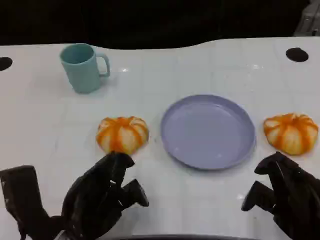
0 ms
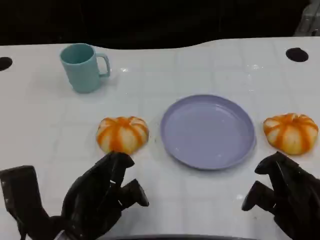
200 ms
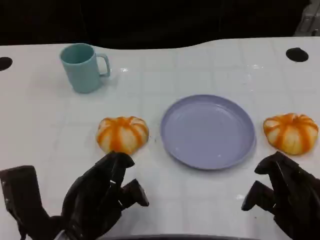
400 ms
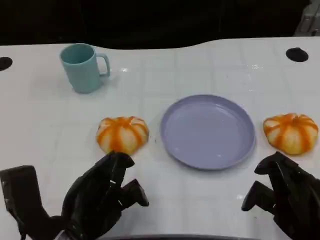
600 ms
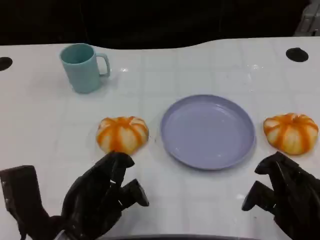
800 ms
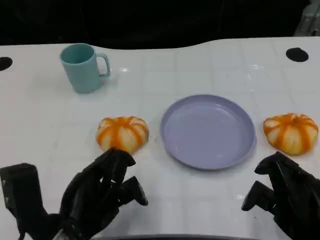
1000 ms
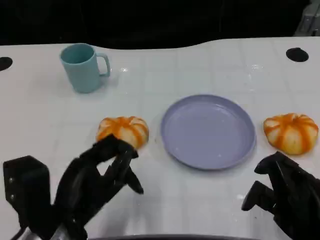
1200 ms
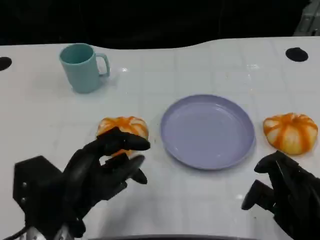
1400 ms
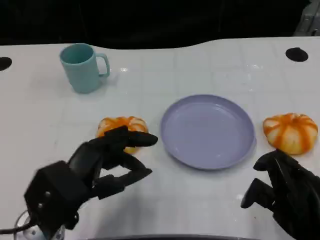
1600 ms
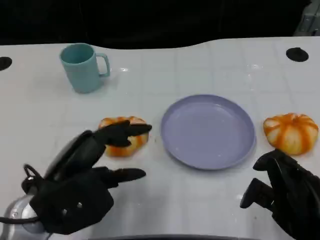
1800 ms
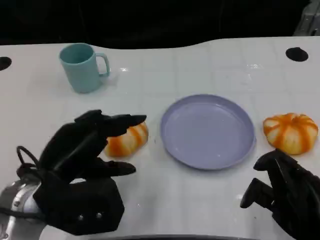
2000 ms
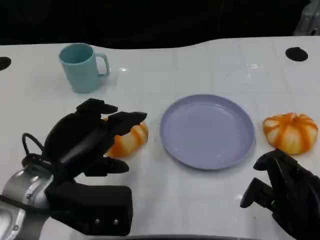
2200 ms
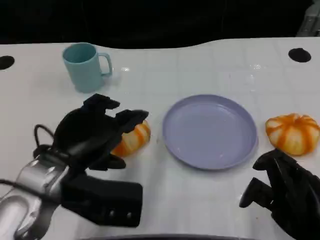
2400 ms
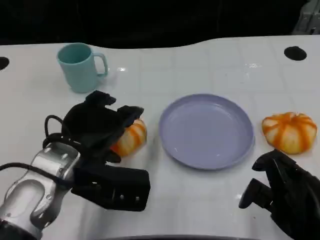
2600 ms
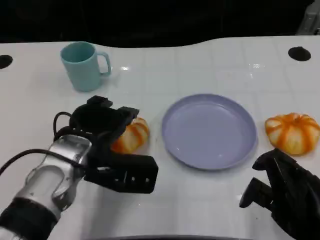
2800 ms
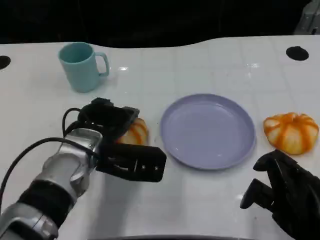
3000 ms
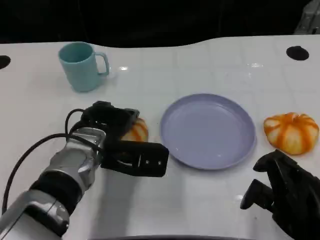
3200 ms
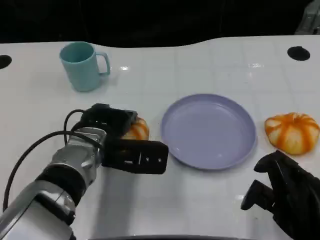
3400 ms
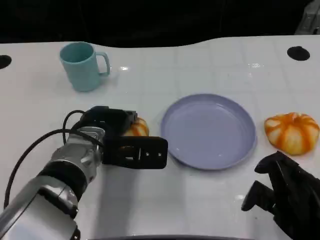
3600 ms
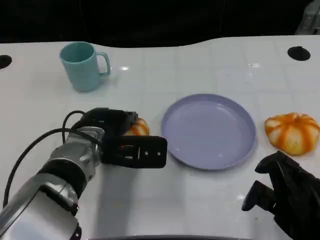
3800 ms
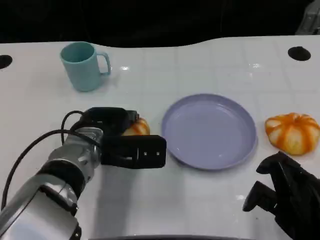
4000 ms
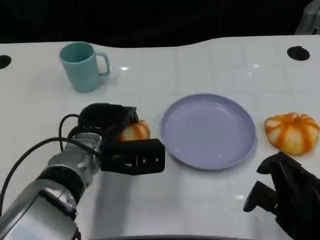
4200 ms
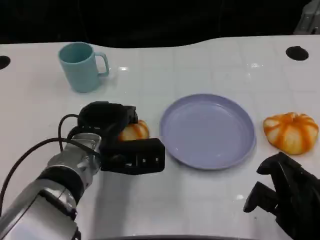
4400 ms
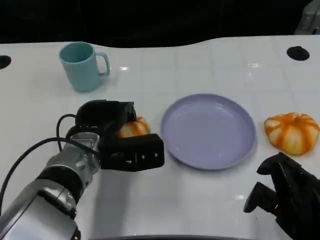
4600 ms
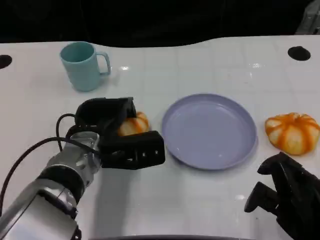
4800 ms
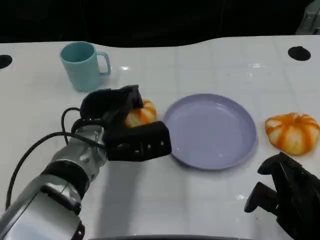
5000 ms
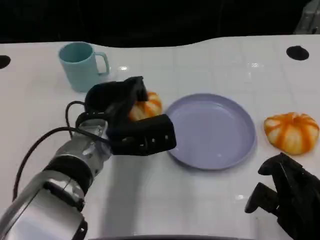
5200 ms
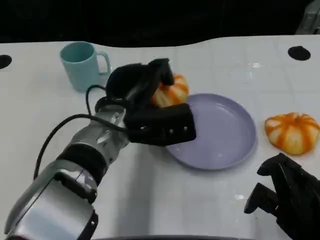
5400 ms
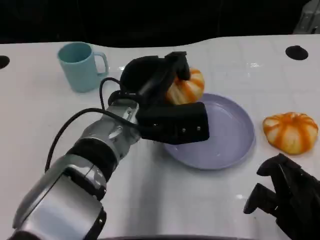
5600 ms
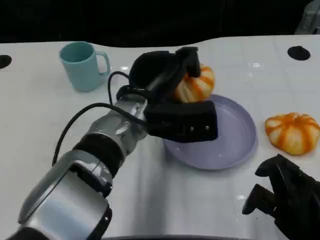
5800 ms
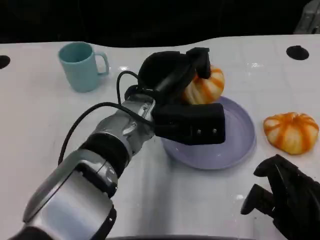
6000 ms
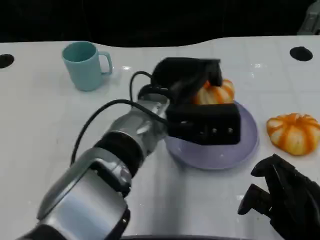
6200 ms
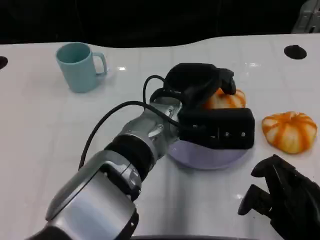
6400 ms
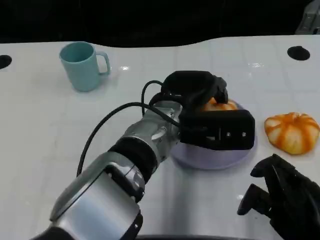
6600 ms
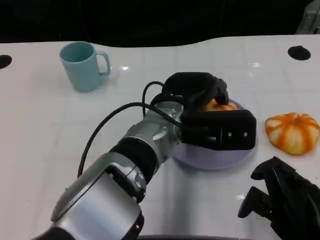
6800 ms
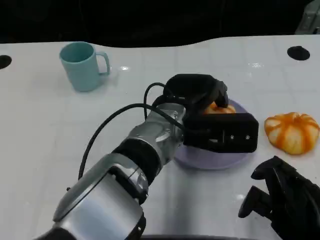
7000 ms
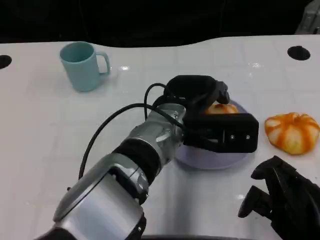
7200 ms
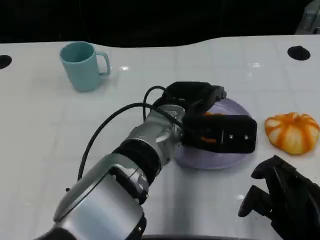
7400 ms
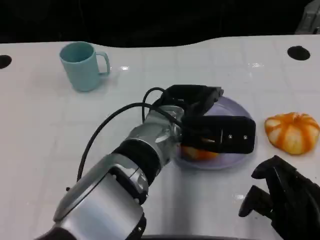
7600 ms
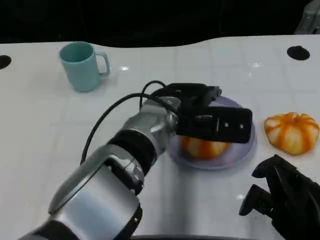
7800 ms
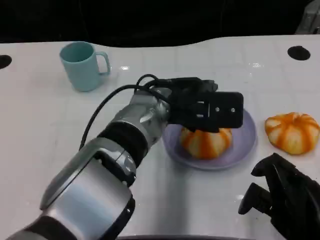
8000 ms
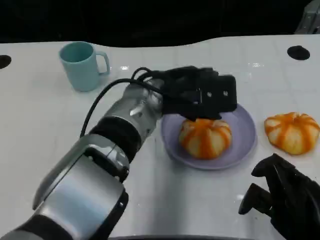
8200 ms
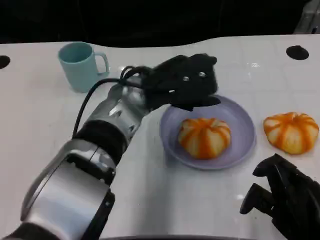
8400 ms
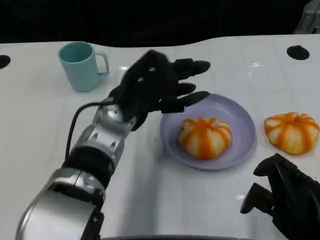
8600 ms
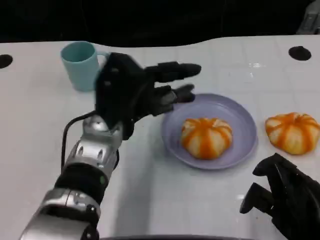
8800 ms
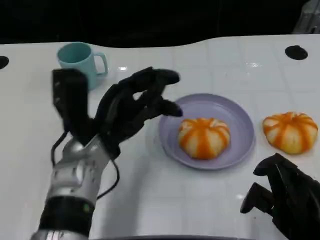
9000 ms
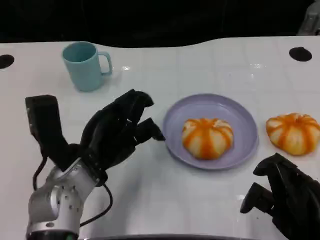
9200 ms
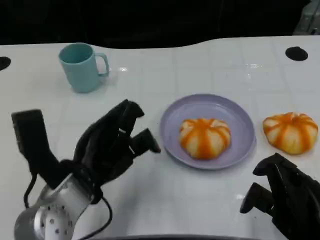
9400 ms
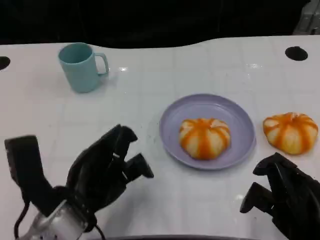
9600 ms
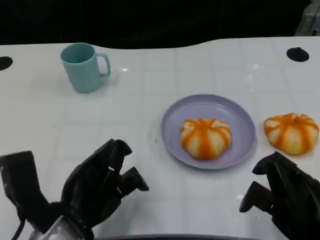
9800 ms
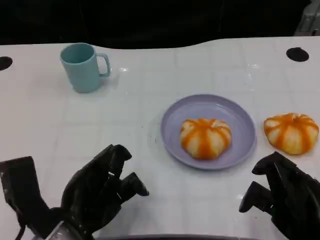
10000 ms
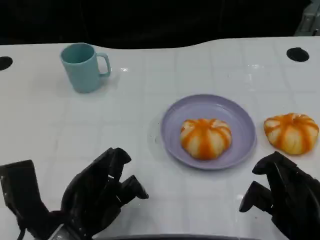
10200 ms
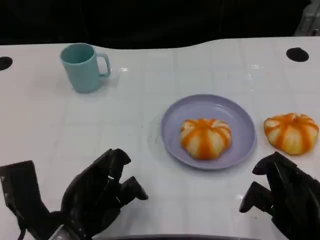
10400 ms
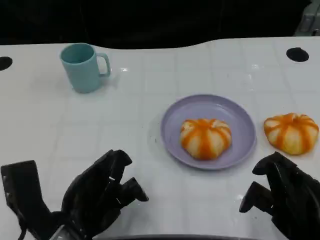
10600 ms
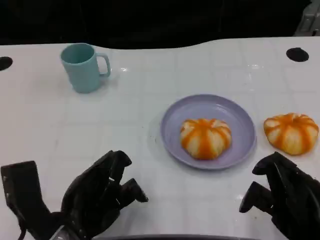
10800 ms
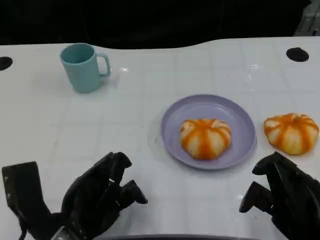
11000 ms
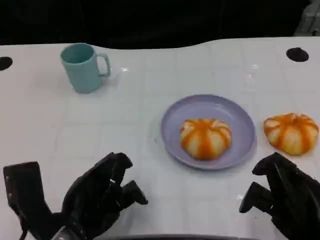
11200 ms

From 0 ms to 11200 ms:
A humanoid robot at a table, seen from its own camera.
Task of the whole recording: Grasp the bread from the table and place it into the plate.
From 1600 ms to 3200 ms: The left hand moves forward and to the right, approximately 15 cm.
From 4800 ms to 6400 ms: The left hand heads to the right and upward, covering some 15 cm.
From 8000 ms to 9600 ms: The left hand heads to the left, backward and downward, covering about 20 cm.
From 9600 ms to 11200 ms: The hands make only small movements.

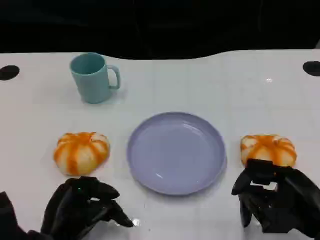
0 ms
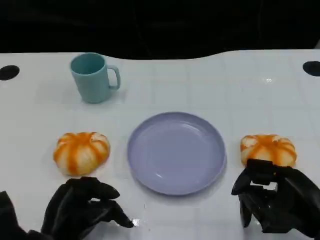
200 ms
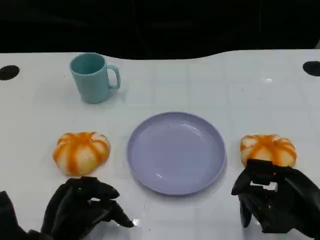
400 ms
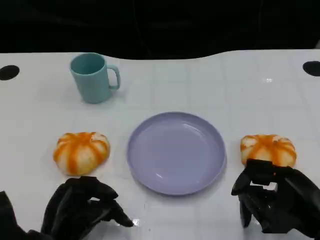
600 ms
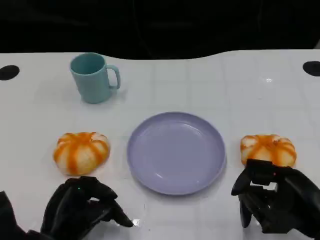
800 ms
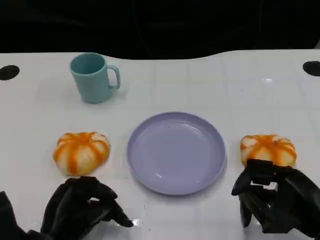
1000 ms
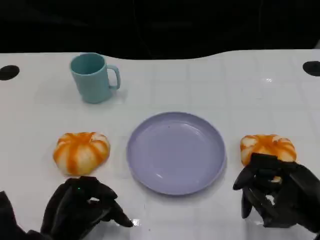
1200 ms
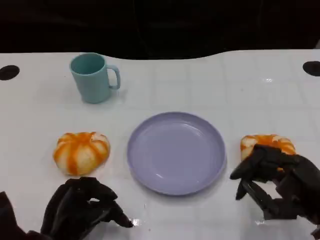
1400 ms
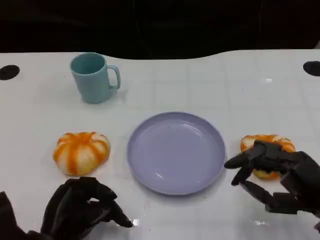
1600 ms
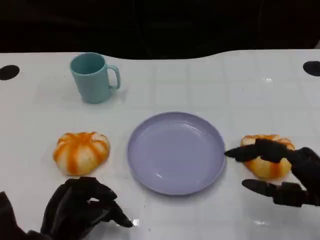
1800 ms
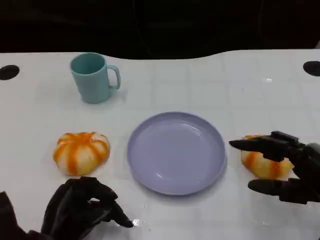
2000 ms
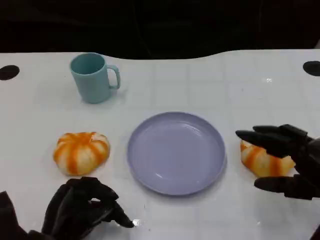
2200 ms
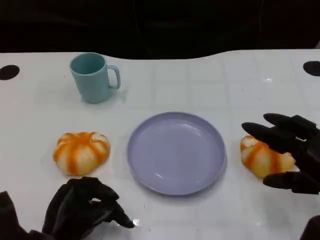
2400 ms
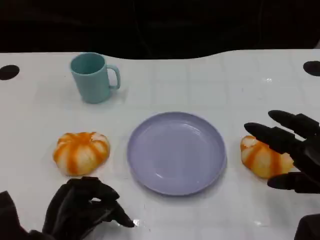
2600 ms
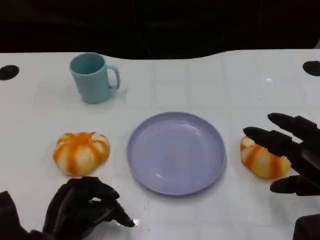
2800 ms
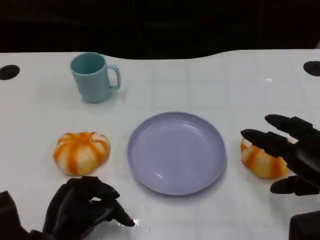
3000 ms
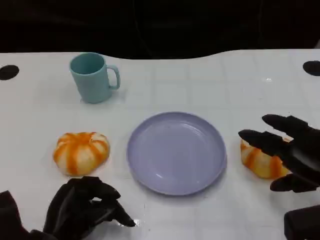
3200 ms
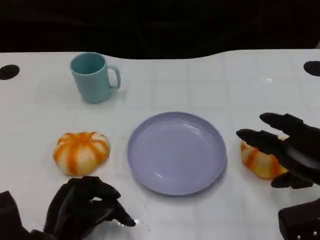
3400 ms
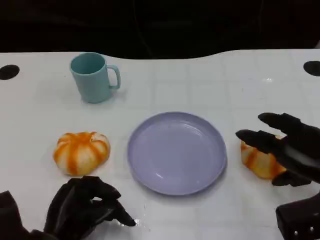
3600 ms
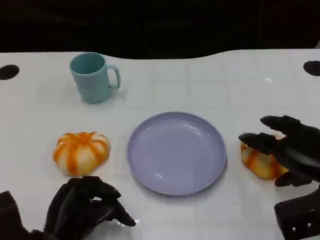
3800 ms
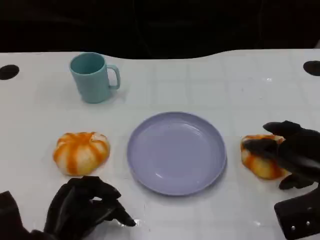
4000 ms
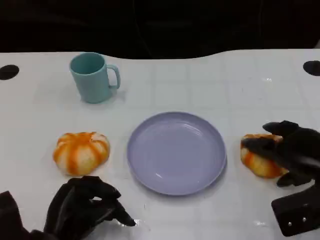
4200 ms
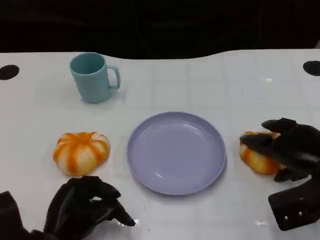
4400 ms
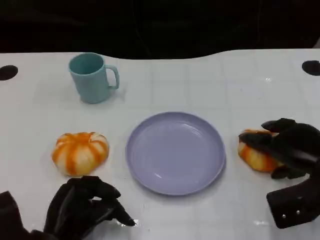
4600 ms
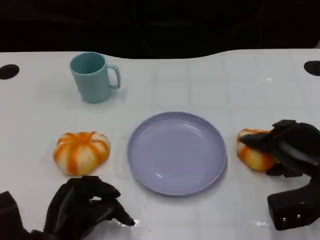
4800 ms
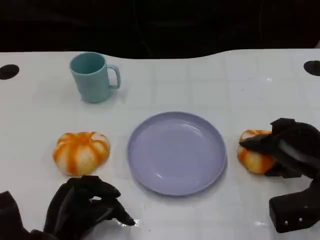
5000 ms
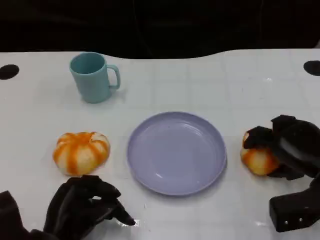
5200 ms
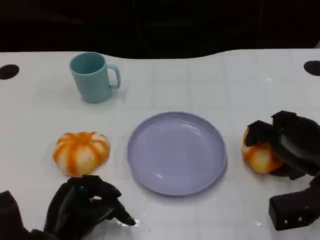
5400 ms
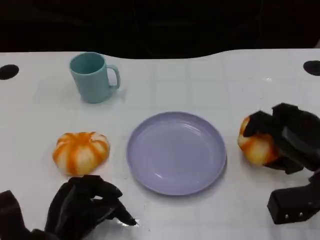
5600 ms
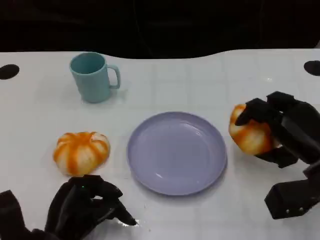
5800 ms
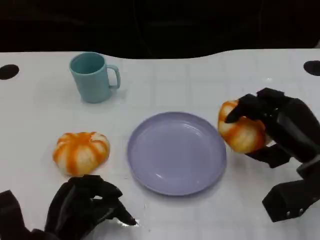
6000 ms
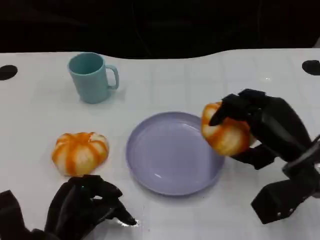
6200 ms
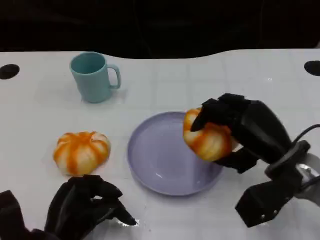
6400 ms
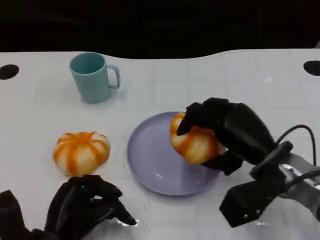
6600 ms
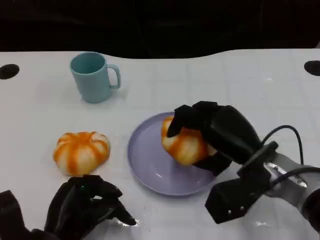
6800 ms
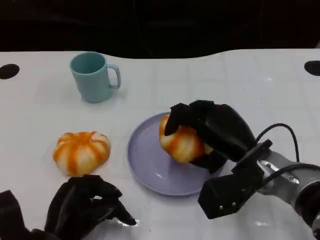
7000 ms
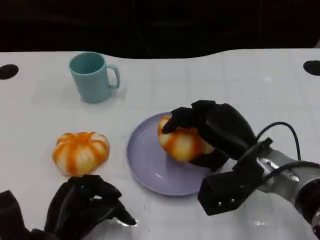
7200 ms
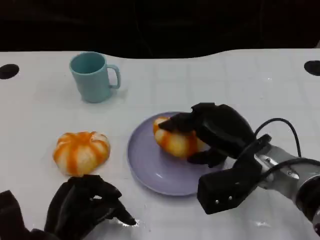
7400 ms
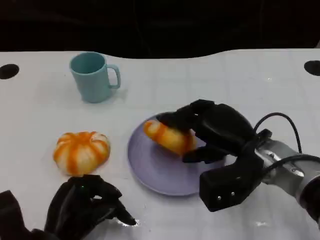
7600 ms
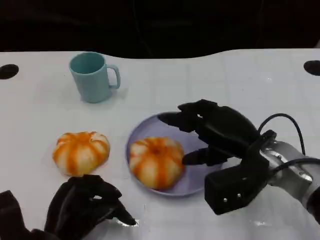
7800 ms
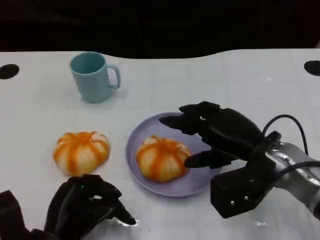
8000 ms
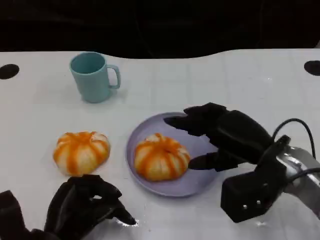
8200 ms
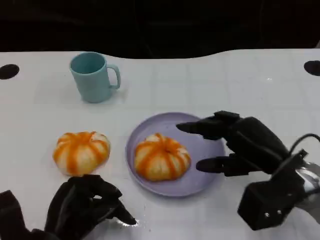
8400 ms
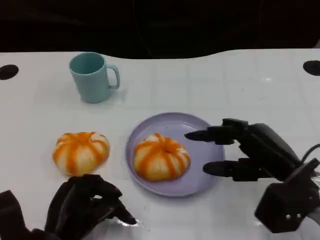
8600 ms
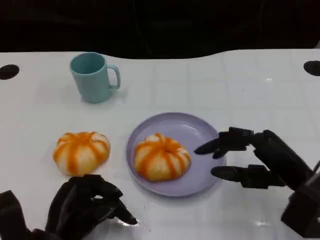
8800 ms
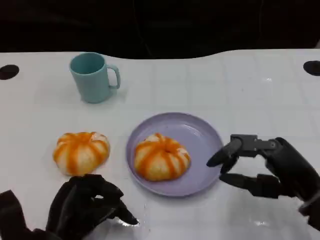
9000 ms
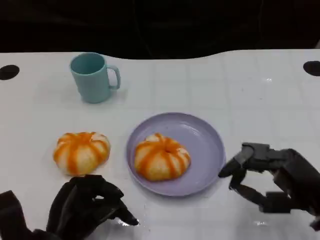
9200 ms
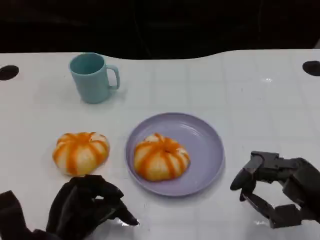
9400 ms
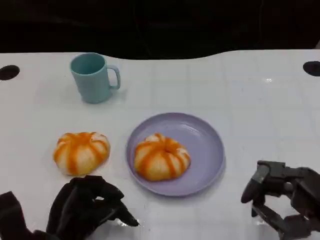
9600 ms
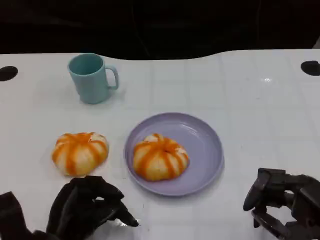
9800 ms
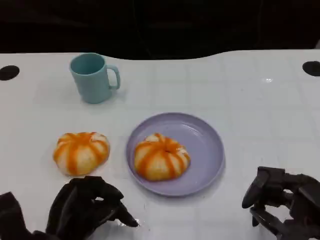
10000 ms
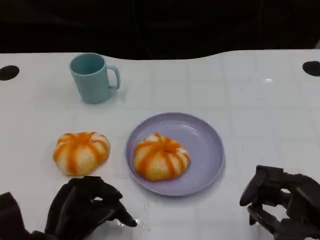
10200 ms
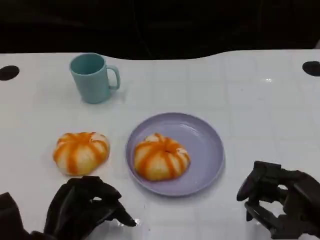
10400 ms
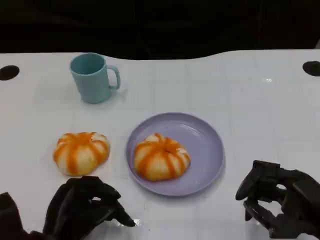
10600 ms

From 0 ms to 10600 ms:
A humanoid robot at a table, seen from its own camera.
Task of the whole recording: Grasp the bread from the table and place it into the plate.
From 3000 ms to 4600 ms: The right hand heads forward, covering roughly 5 cm.
From 6000 ms to 7600 ms: The right hand shifts about 10 cm to the left.
From 7600 ms to 9000 ms: The right hand heads to the right and backward, covering about 10 cm.
From 9000 ms to 10600 ms: The right hand changes place by approximately 5 cm.

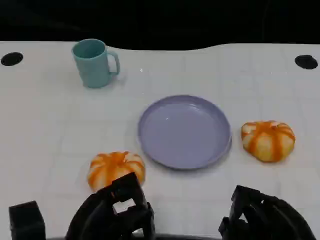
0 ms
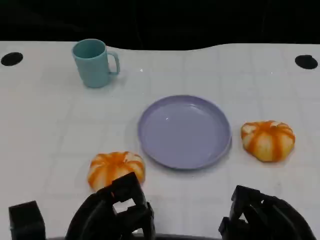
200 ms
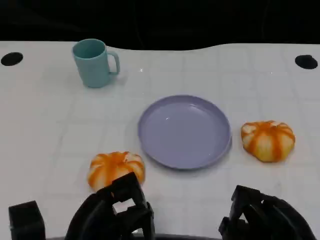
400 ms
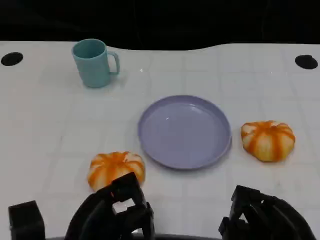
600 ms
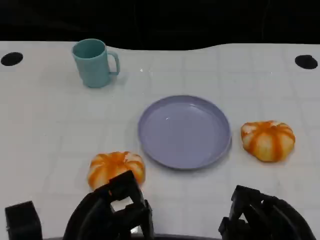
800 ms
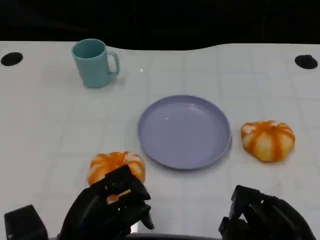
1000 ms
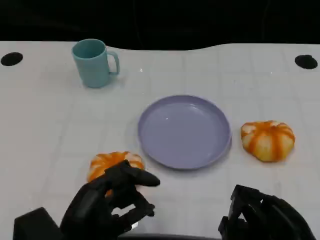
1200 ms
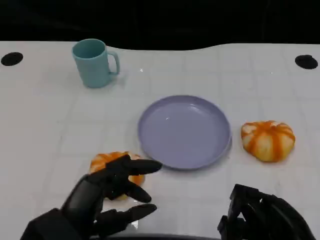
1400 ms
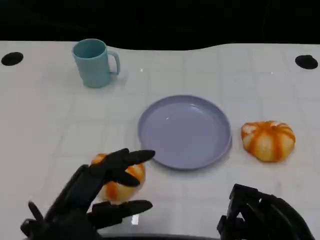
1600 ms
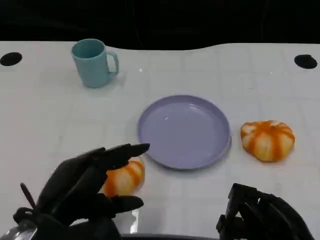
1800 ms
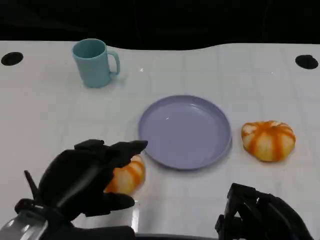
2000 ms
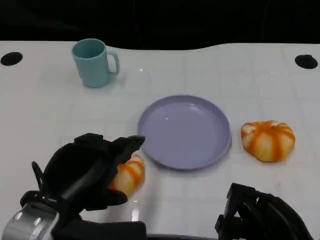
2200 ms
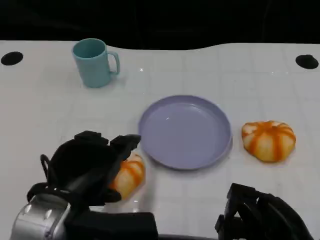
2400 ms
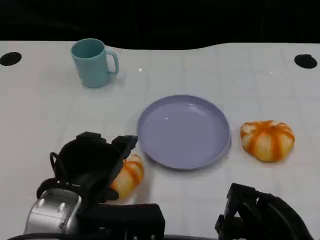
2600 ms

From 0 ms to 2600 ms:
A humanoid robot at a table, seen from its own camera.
Task of the whole recording: Grasp the bread from the table and place it into the plate.
From 1200 ms to 2600 ms: The left hand goes roughly 5 cm upward.
